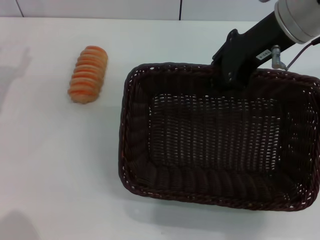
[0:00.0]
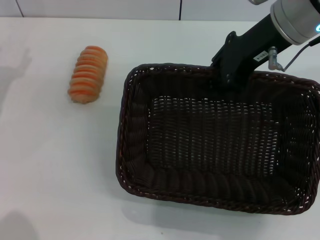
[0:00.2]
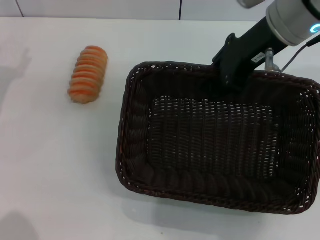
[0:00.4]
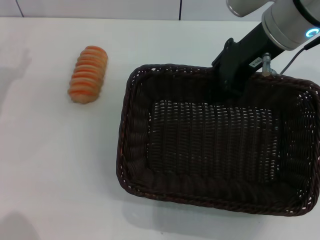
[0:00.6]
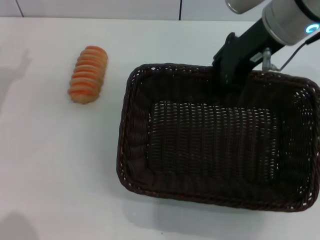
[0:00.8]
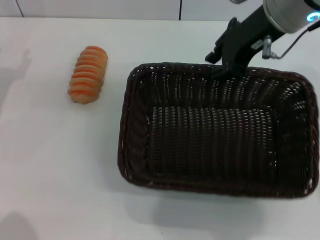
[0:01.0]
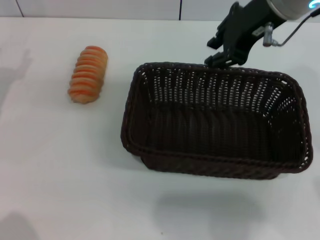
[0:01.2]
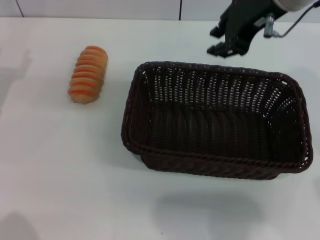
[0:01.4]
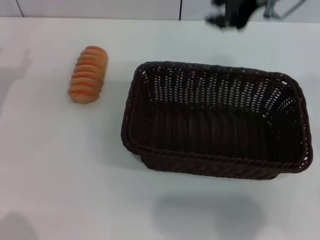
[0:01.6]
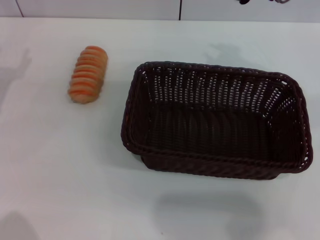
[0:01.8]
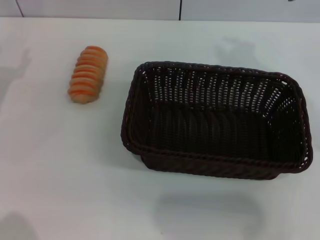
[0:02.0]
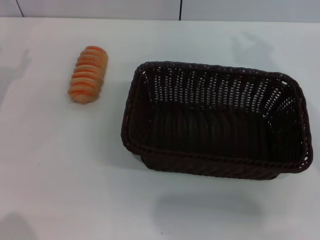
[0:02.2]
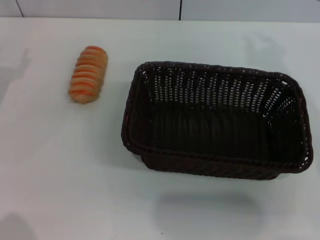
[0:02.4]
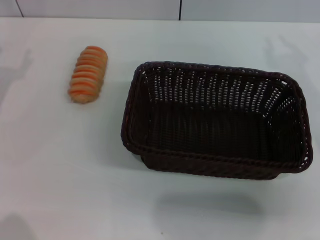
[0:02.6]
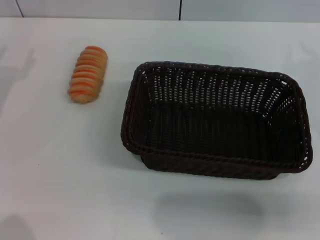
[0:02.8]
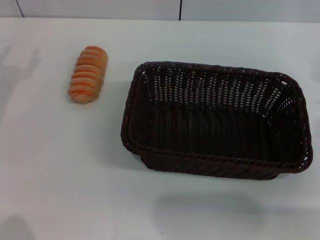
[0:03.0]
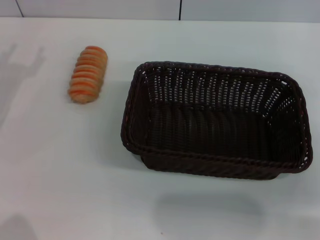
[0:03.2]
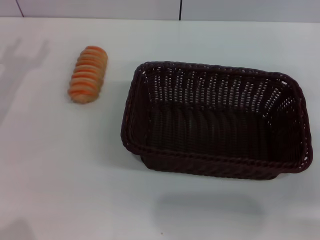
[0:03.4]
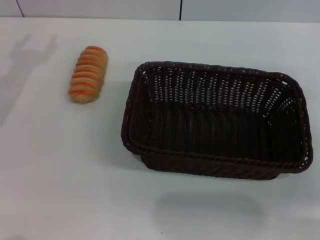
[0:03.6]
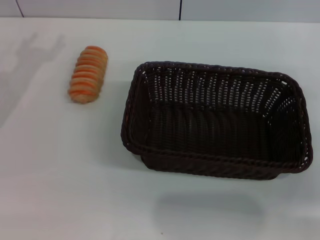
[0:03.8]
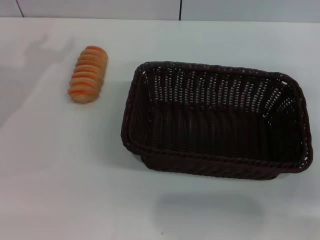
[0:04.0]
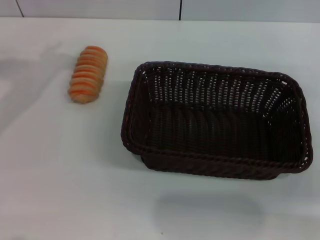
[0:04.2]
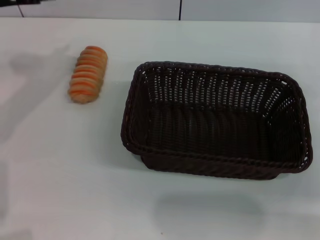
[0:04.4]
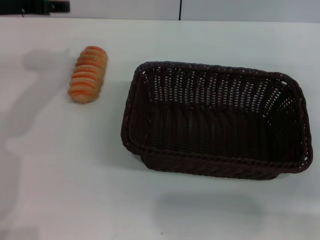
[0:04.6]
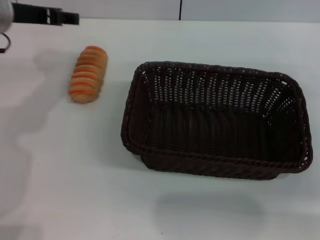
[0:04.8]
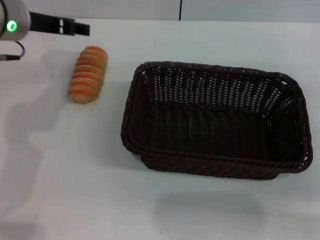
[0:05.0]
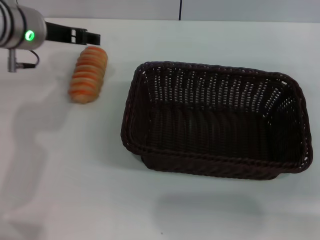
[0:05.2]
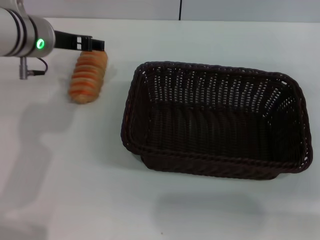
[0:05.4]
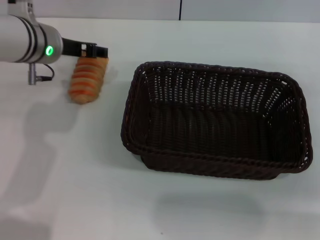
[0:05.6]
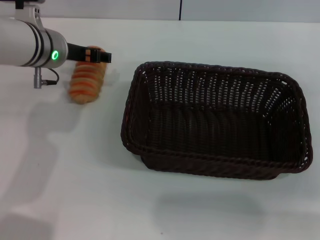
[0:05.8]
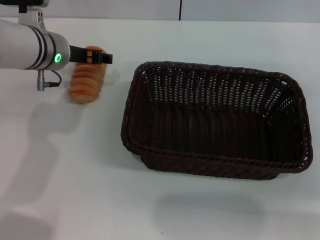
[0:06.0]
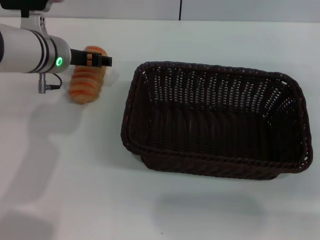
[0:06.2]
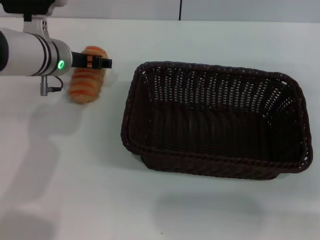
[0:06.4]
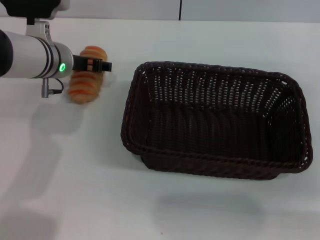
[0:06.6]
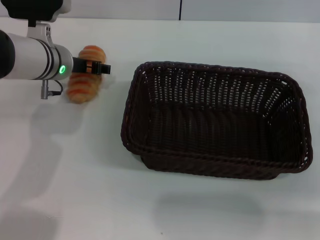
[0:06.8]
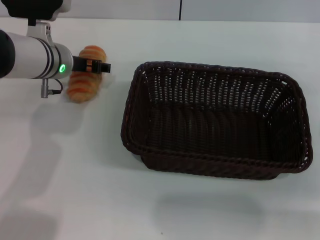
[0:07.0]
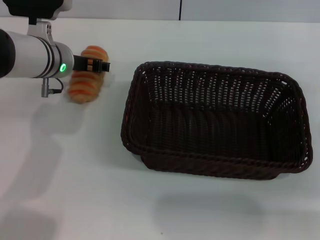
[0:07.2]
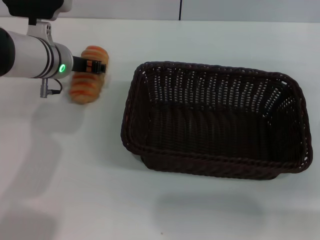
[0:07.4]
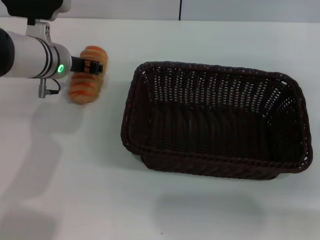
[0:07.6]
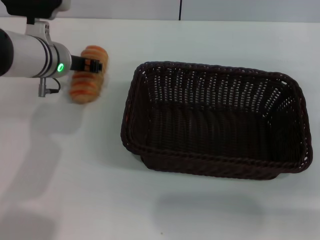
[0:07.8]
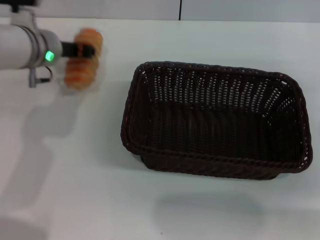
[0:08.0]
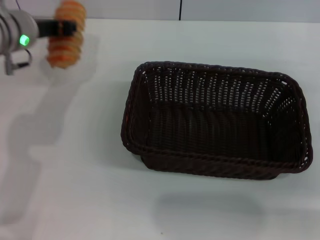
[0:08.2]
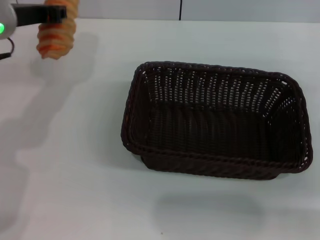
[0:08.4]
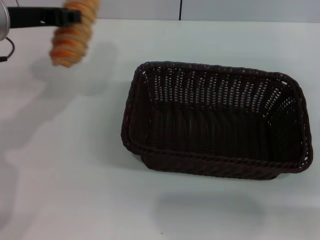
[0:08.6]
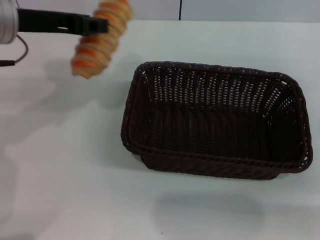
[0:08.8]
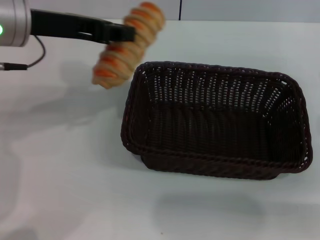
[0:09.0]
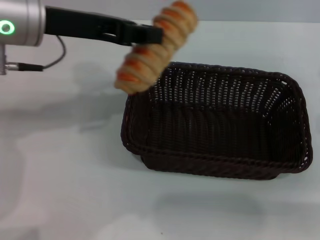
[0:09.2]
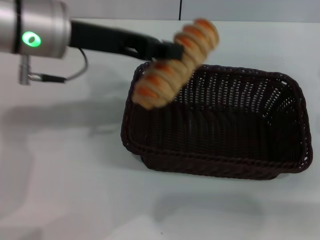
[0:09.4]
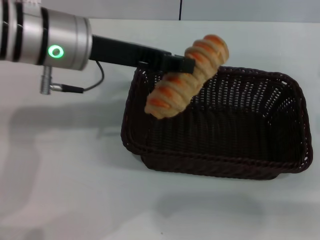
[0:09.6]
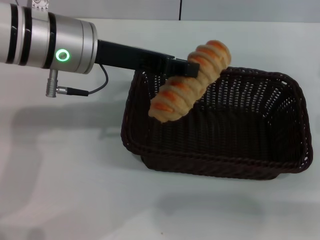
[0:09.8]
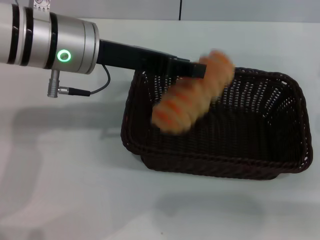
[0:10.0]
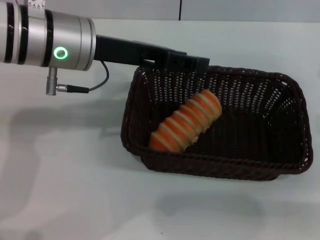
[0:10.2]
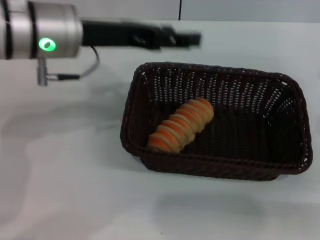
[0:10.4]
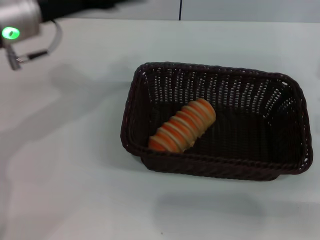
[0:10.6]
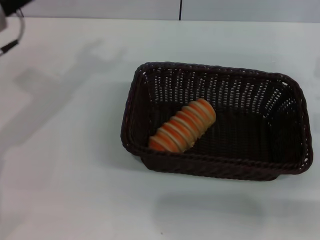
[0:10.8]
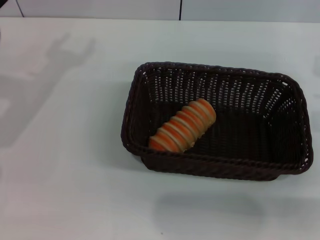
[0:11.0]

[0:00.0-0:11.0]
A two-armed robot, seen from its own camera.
Step, 0:01.4 to 0:08.2: Pick up the long bread with the left gripper.
Step, 0:08.4 to 0:10.2: Place the long bread into the dark basket with the left gripper.
0:01.6 to 0:03.2: The right gripper is displaced downward, to the right and backward by approximately 25 cm.
0:03.2 to 0:04.8: The left gripper travels to the right, upward and forward by approximately 15 cm.
0:04.8 to 0:06.2: The left gripper moves downward and to the right, some 10 cm.
0:06.2 to 0:07.8: The grippers move only a little.
0:07.8 to 0:09.4: The left gripper goes roughly 15 cm upward and backward, and closes.
0:09.4 to 0:11.0: The left gripper travels to the left and downward by roughly 15 cm, and opens its fingers.

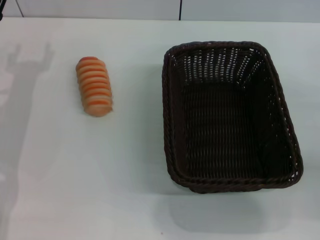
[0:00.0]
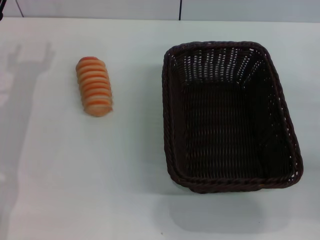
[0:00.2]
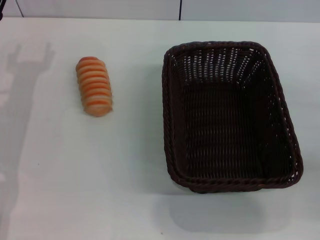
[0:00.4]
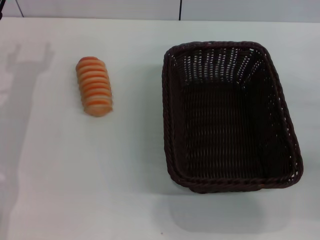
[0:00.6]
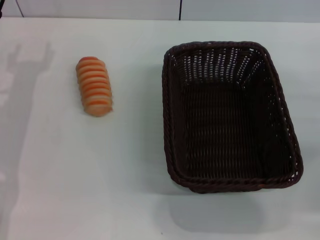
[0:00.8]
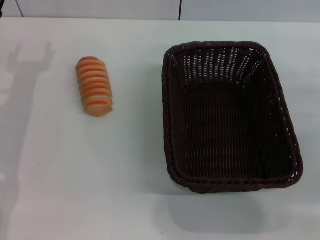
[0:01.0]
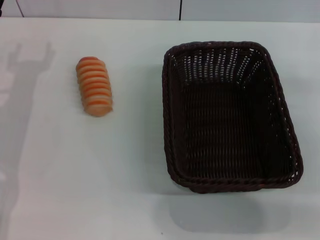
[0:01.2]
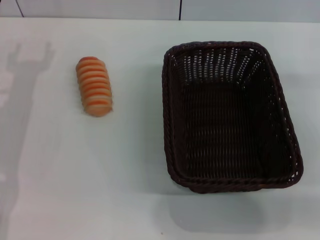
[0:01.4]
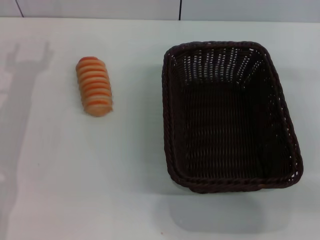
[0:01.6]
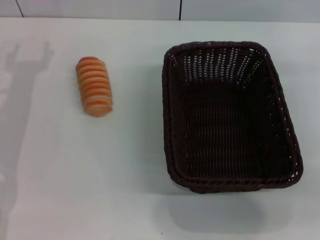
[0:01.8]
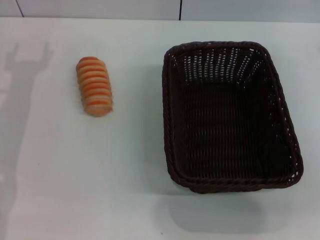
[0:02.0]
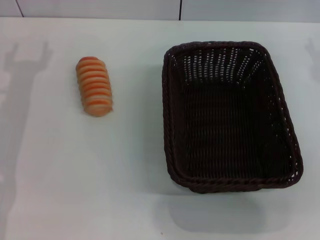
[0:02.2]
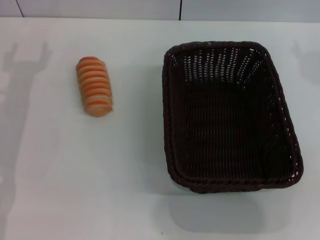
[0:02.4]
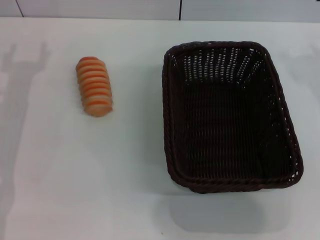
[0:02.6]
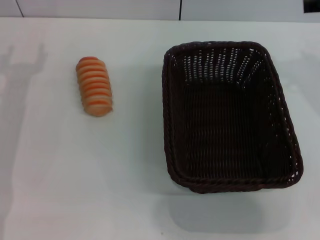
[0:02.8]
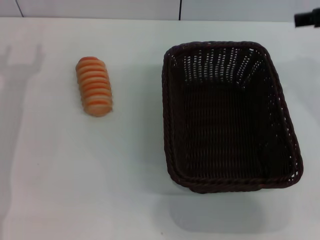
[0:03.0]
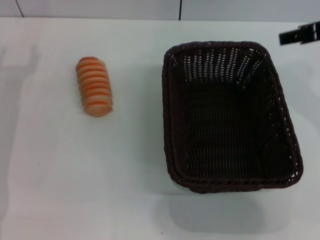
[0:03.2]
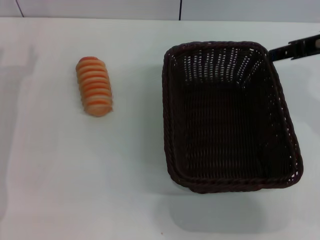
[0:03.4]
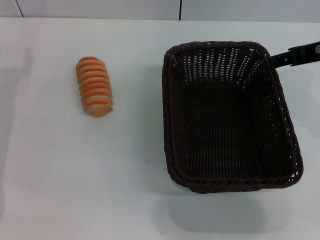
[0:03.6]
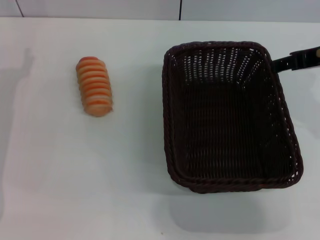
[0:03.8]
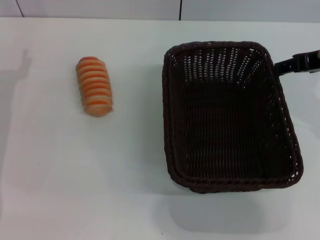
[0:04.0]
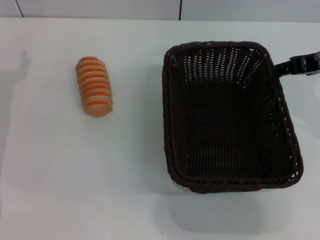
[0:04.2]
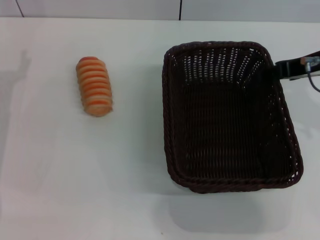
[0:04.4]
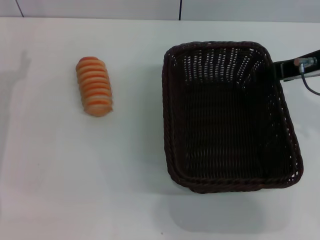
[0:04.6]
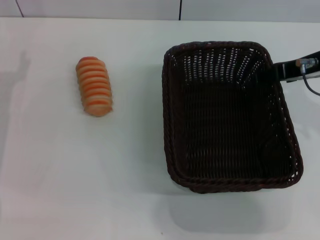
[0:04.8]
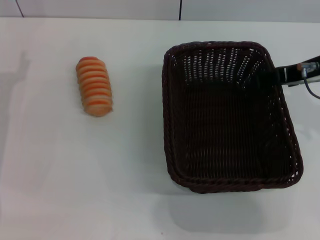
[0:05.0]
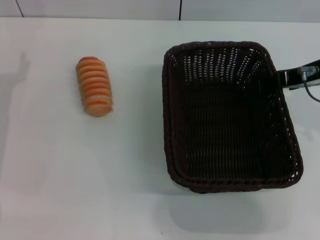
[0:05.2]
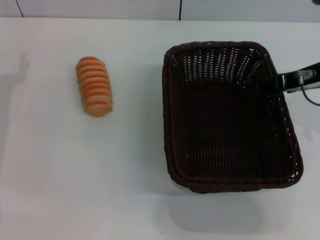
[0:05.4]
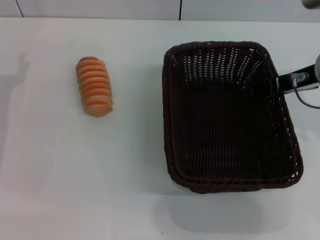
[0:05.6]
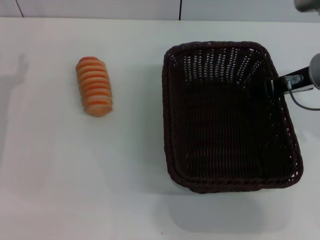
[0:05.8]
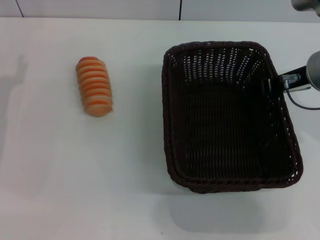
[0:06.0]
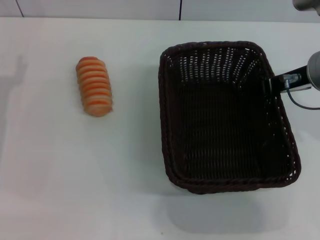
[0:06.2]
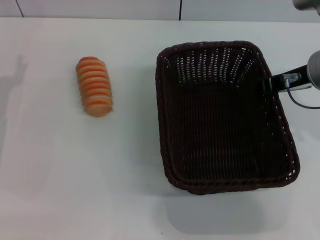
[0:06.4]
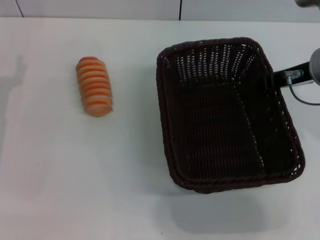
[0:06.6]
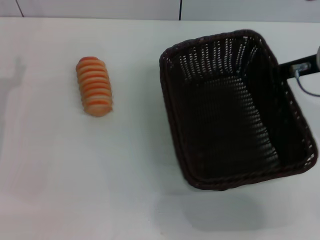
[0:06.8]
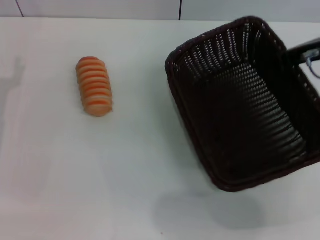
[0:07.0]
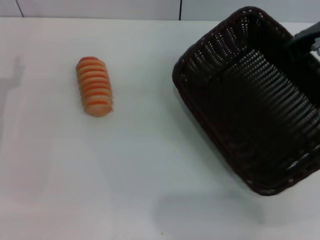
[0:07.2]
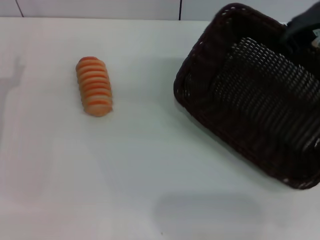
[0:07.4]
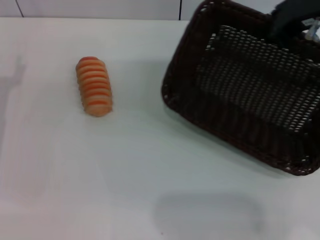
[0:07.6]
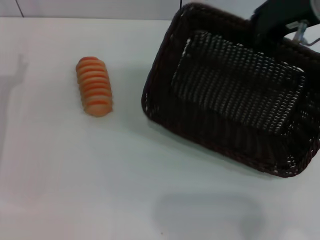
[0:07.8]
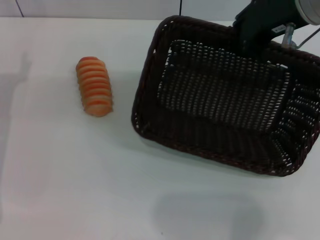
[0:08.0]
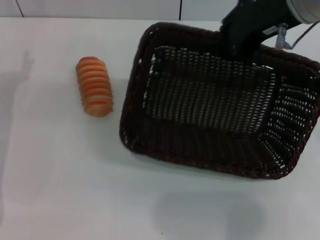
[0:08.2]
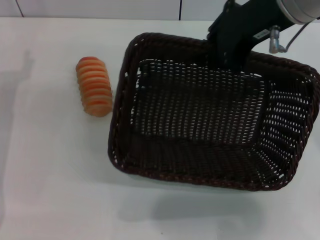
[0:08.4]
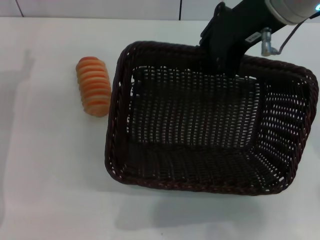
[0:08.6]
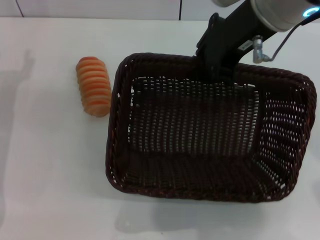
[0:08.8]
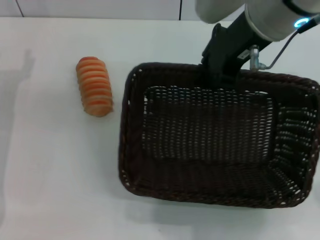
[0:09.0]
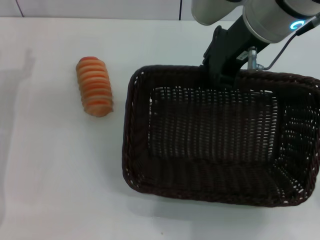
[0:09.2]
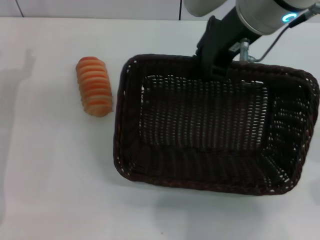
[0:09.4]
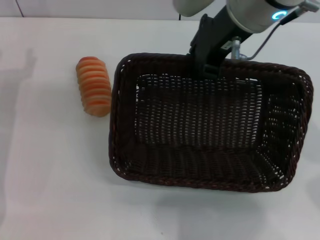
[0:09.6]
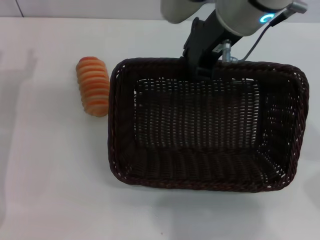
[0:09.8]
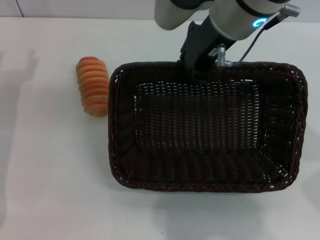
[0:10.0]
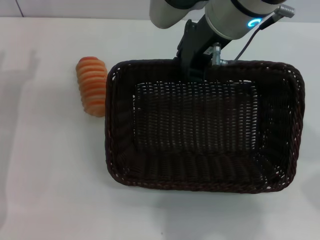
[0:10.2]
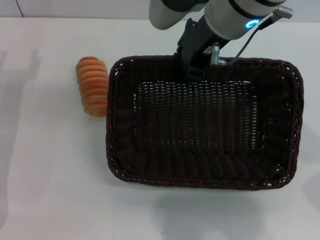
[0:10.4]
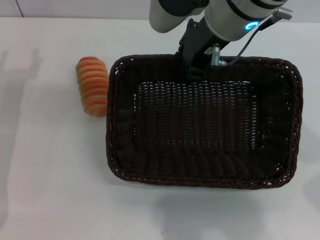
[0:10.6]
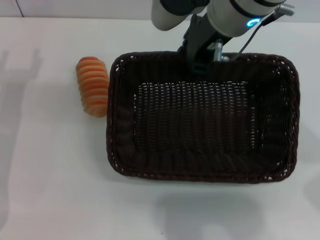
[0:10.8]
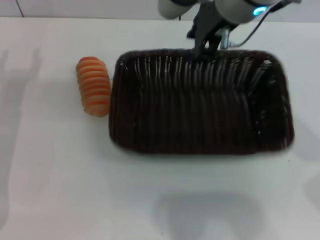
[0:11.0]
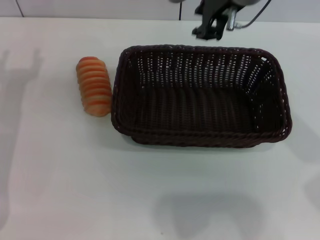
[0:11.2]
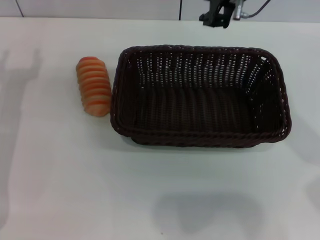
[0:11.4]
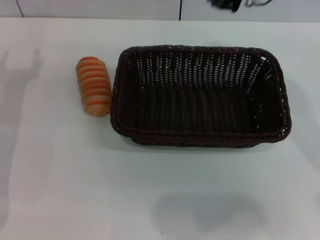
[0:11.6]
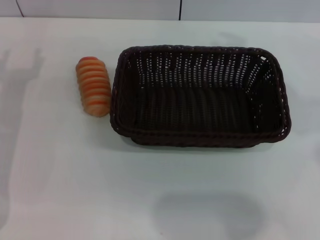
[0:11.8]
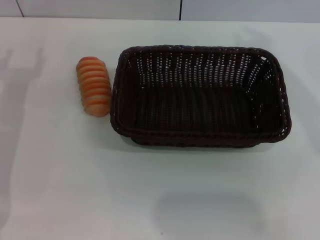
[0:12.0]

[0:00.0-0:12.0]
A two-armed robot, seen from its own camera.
Step, 0:00.0 to 0:07.4: Pick up the dark basket with the right gripper.
Step, 0:07.6 to 0:11.0: Place the dark basket in the center of view with the right gripper.
0:01.6 to 0:03.0: The right gripper heads to the left and upward, covering roughly 15 cm.
0:04.4 to 0:06.0: The grippers make only small movements.
0:06.0 to 0:07.6: The right gripper shifts some 10 cm upward, and closes up.
0:07.6 to 0:09.0: The right gripper is displaced to the left by approximately 10 cm.
0:10.4 to 0:12.0: The right gripper shifts roughly 15 cm to the right.
